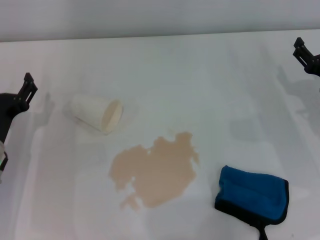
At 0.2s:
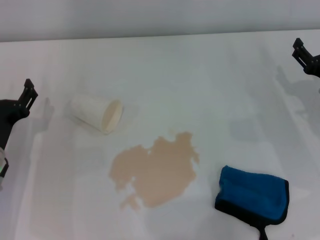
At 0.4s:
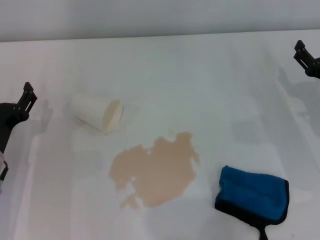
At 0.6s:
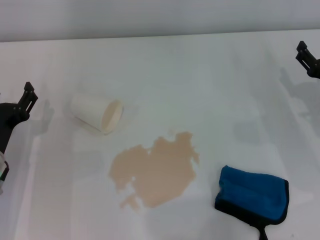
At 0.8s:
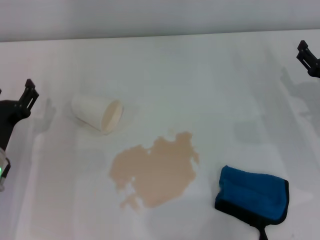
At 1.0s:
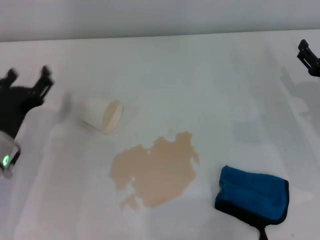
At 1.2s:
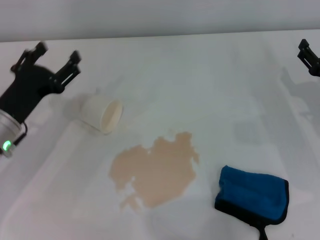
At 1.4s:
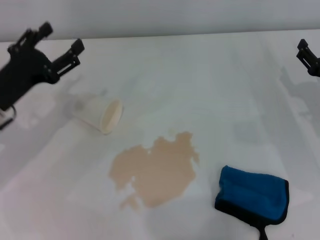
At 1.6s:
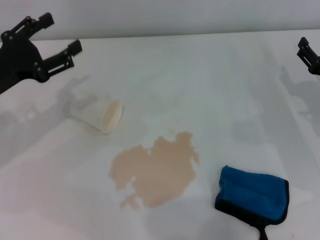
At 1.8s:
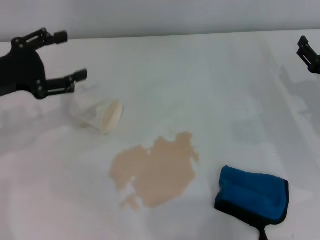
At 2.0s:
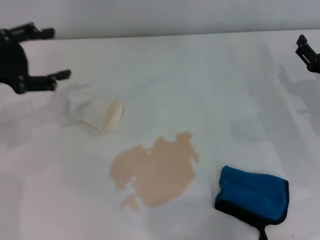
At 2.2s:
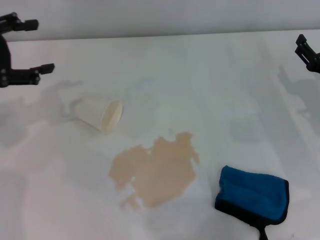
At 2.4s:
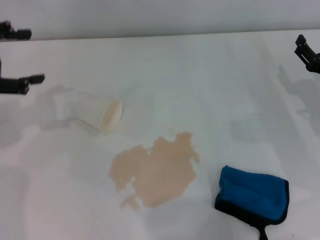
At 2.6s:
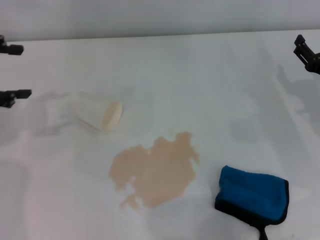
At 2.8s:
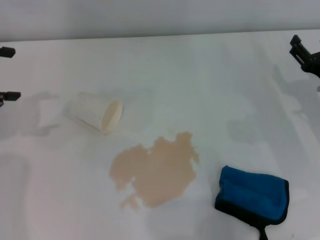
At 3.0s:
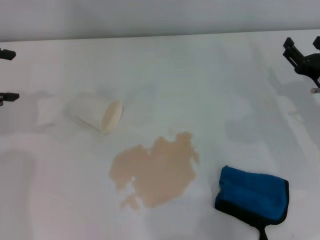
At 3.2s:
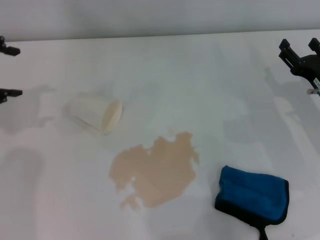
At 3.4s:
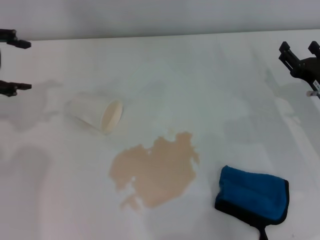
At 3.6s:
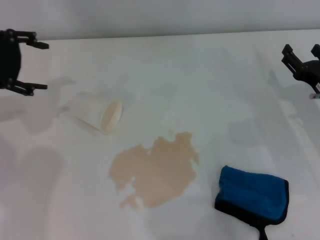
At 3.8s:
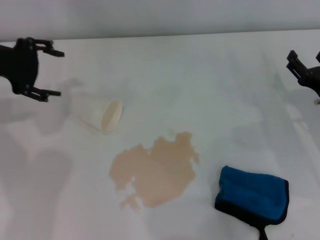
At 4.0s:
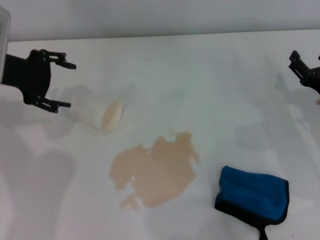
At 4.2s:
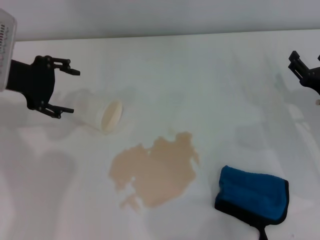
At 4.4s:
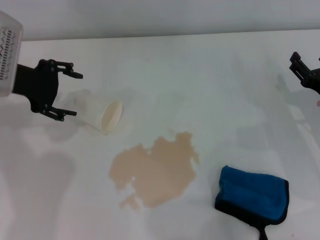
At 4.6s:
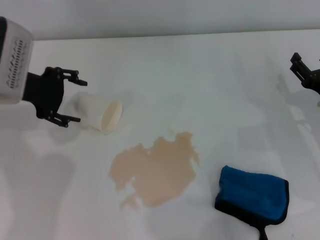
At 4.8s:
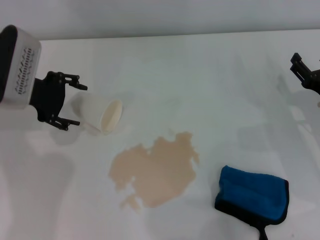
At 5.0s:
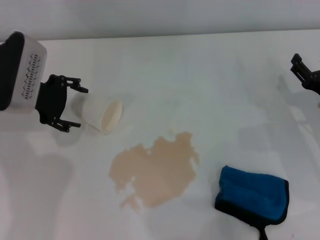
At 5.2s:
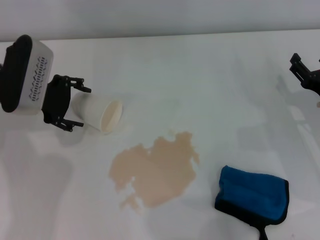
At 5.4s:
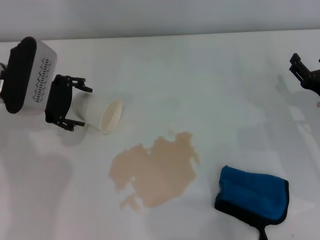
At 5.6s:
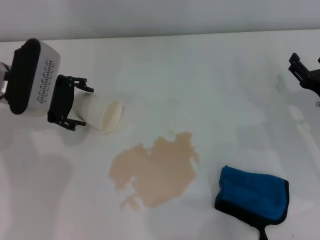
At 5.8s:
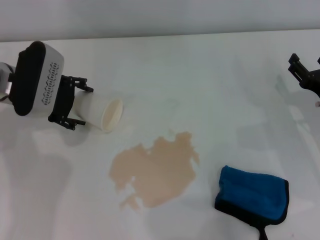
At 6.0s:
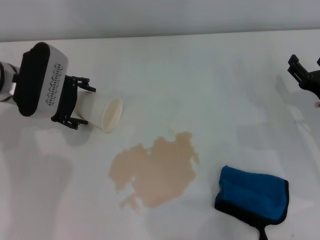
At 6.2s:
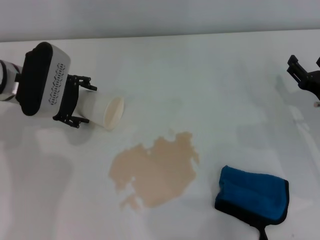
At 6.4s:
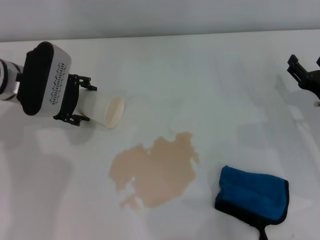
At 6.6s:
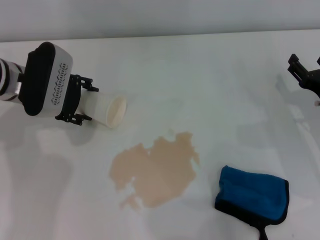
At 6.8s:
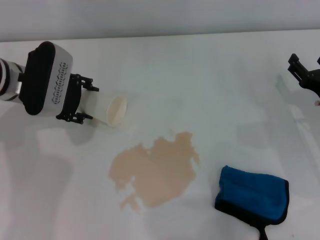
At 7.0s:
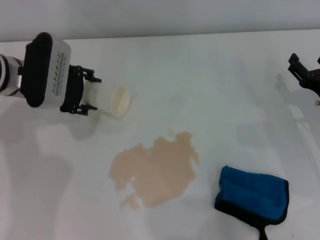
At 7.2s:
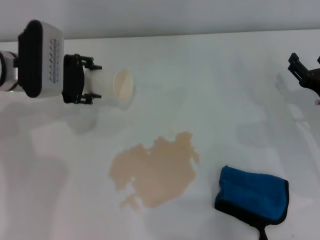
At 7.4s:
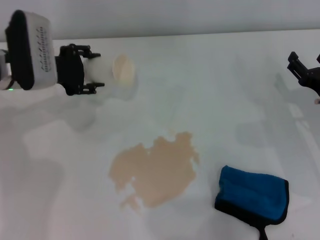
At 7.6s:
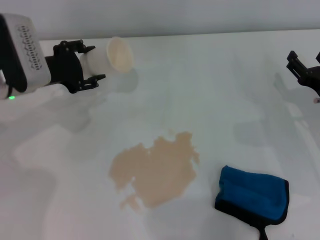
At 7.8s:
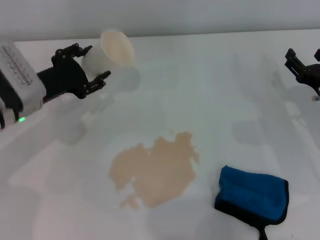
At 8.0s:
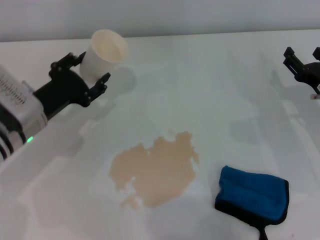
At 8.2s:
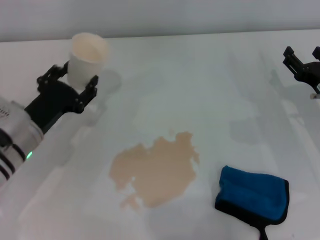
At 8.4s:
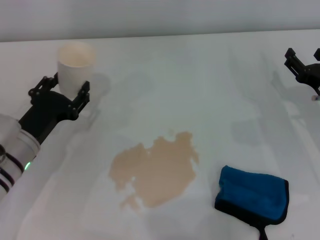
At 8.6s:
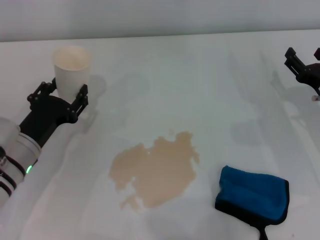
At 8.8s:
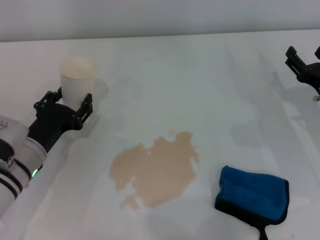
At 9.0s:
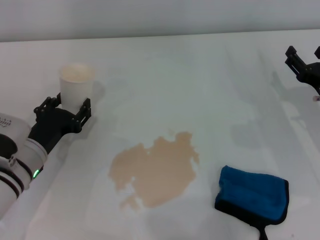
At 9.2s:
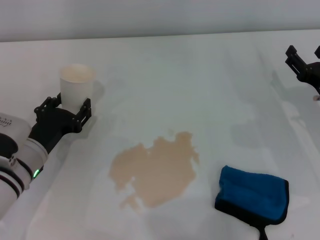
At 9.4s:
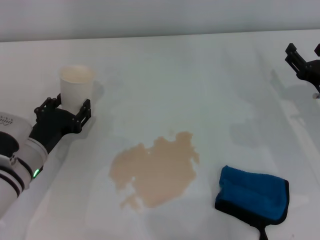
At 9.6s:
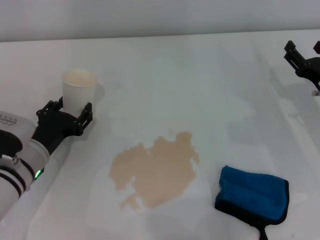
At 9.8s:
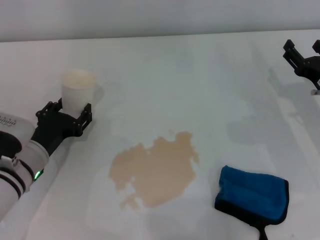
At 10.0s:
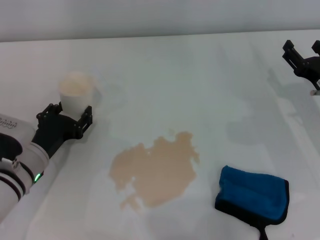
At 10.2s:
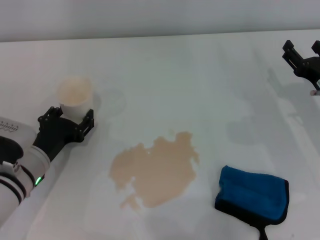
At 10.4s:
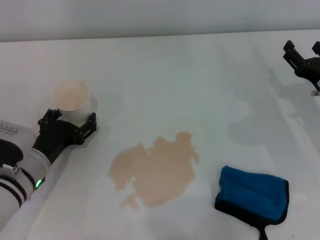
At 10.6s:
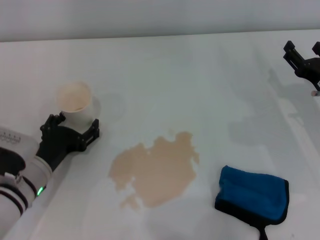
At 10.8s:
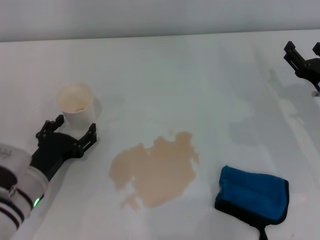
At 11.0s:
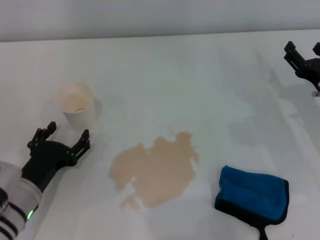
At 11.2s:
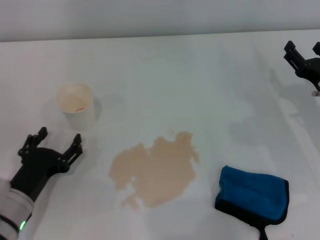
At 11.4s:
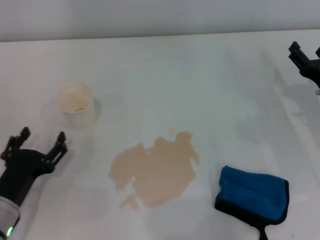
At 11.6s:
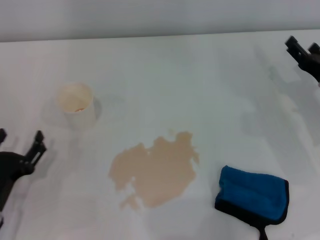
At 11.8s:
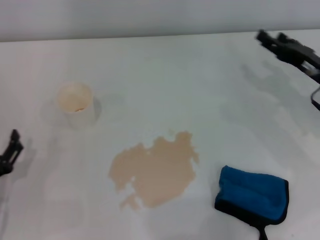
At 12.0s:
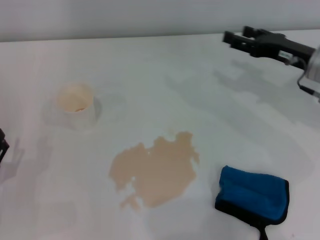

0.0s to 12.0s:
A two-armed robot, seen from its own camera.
Step, 0.0s to 6.6s: Grasp the paper cup with the left gripper.
Step, 6.8s to 10.2s: Stand the paper cup upright with the left gripper.
0.0s to 1.6s: The left gripper travels upward by some 10 cm.
1.6s to 3.0s: The left gripper goes approximately 15 cm upward and to the left.
3.0s to 4.4s: The left gripper travels to the right and downward by roughly 10 cm.
4.4s to 6.0s: The left gripper shifts some 5 cm downward.
6.0s to 7.6s: The left gripper closes its fingers.
7.6s to 9.0s: The left gripper shifts approximately 15 cm backward and downward.
9.0s to 10.4s: The left gripper opens.
10.4s to 12.0s: The left gripper shifts about 10 cm backward and to the left, and opens up, while the right gripper is displaced upward and forward by about 10 cm.

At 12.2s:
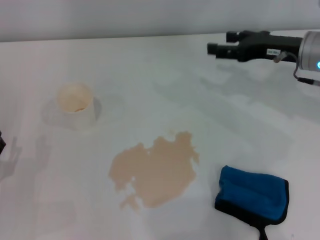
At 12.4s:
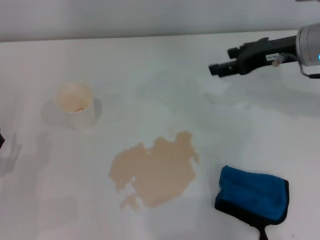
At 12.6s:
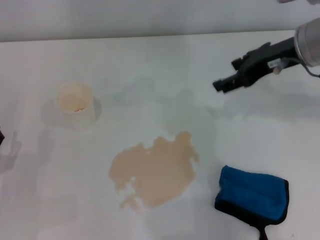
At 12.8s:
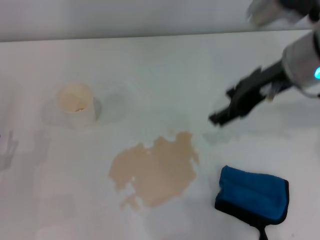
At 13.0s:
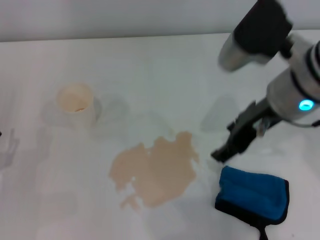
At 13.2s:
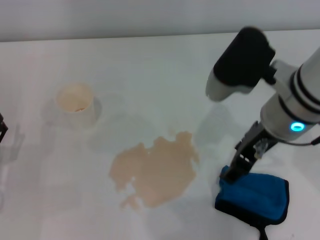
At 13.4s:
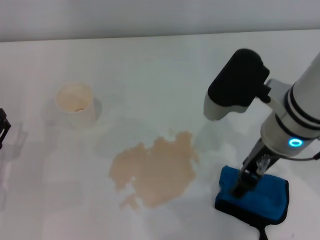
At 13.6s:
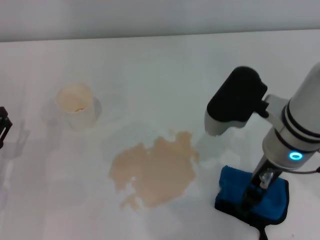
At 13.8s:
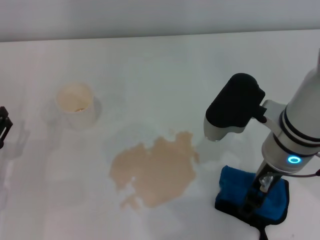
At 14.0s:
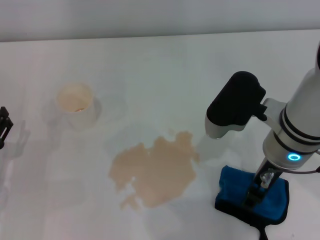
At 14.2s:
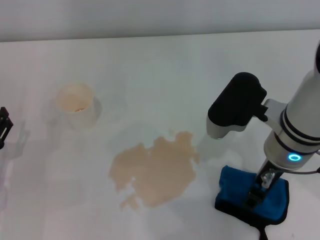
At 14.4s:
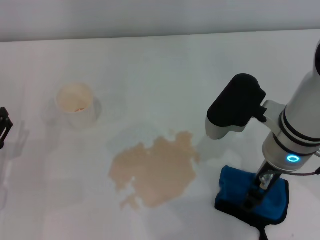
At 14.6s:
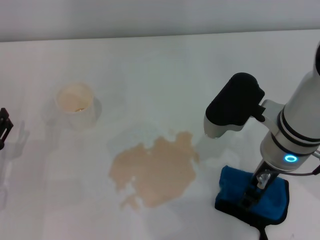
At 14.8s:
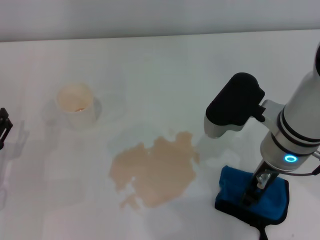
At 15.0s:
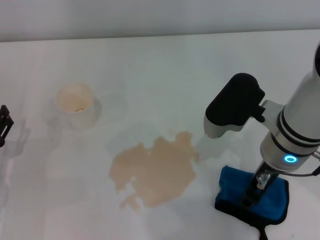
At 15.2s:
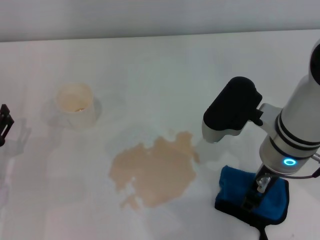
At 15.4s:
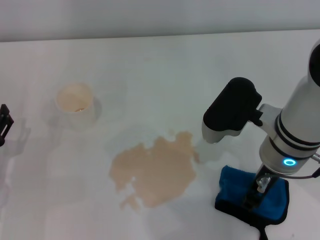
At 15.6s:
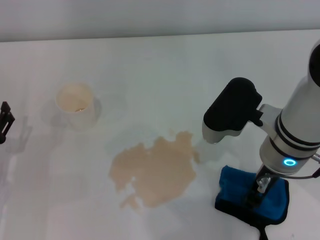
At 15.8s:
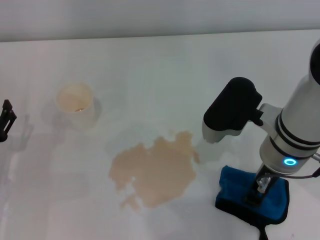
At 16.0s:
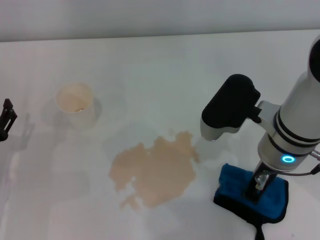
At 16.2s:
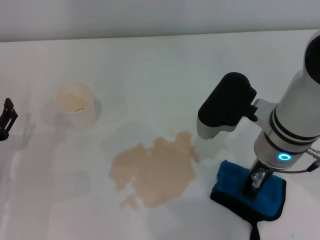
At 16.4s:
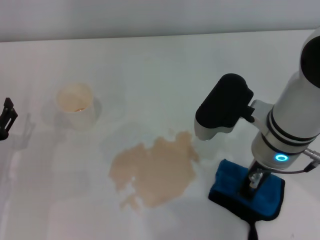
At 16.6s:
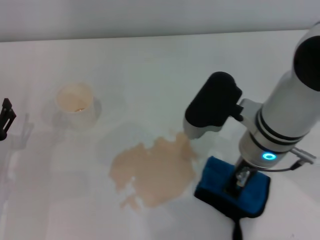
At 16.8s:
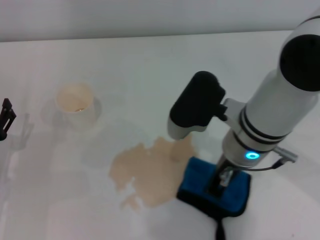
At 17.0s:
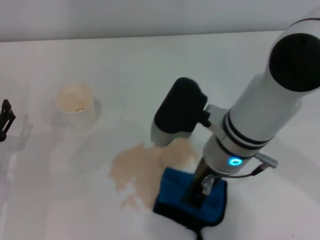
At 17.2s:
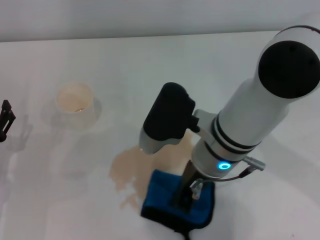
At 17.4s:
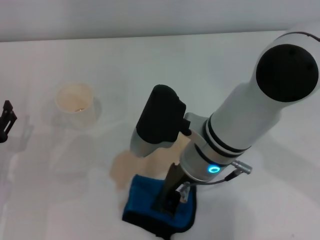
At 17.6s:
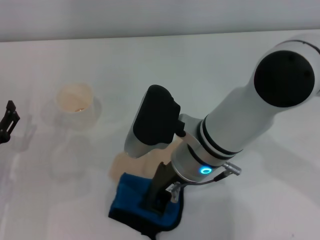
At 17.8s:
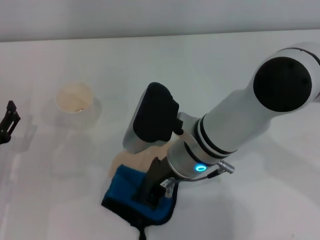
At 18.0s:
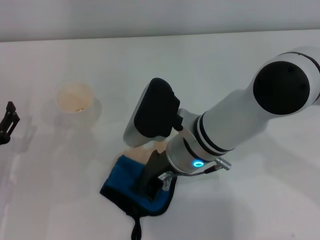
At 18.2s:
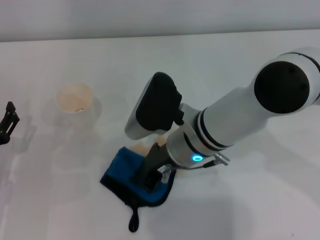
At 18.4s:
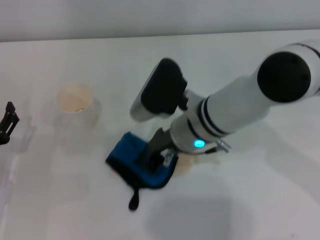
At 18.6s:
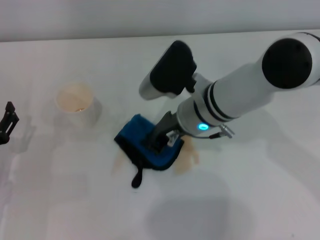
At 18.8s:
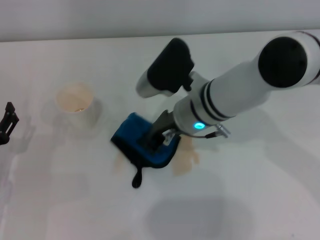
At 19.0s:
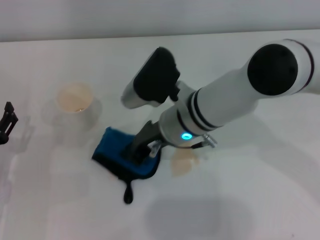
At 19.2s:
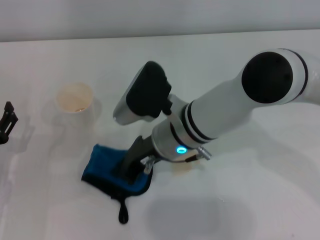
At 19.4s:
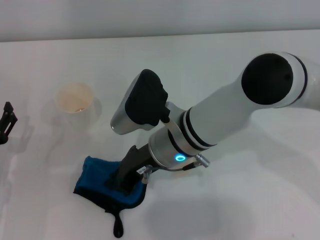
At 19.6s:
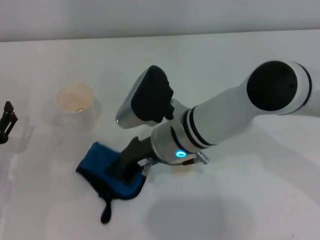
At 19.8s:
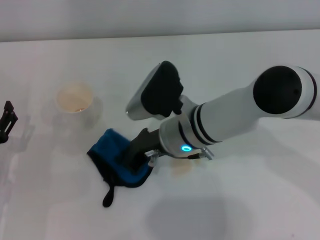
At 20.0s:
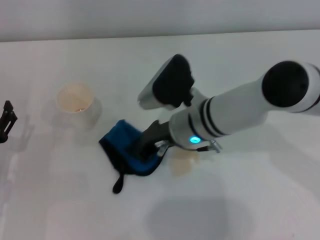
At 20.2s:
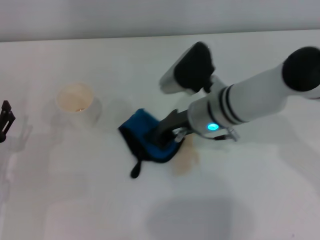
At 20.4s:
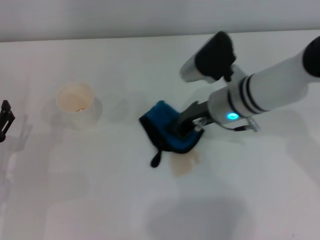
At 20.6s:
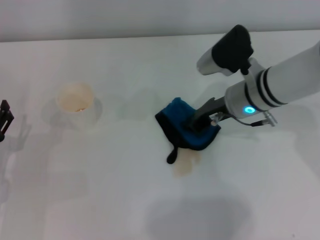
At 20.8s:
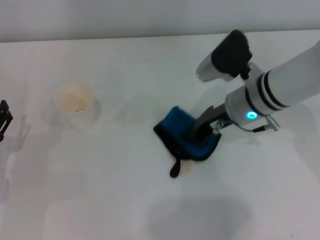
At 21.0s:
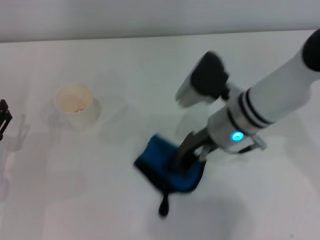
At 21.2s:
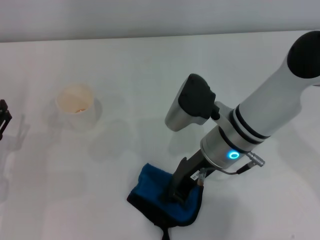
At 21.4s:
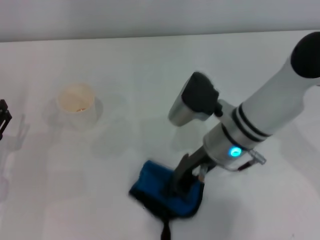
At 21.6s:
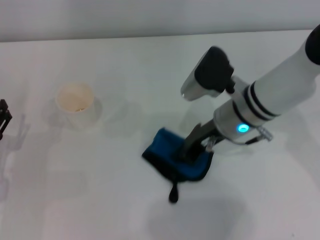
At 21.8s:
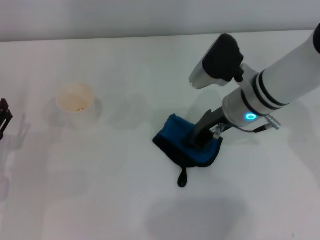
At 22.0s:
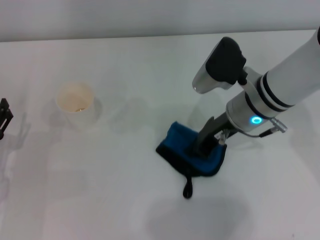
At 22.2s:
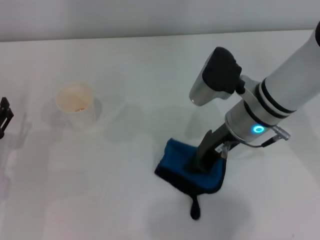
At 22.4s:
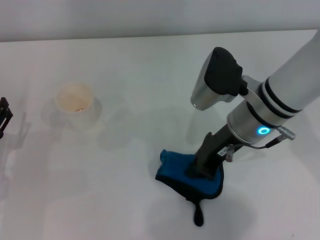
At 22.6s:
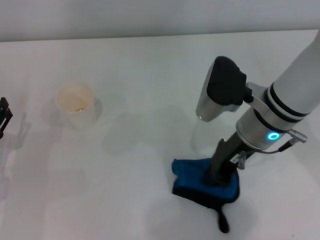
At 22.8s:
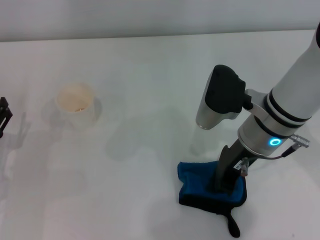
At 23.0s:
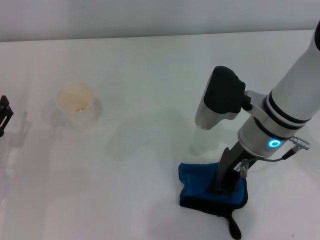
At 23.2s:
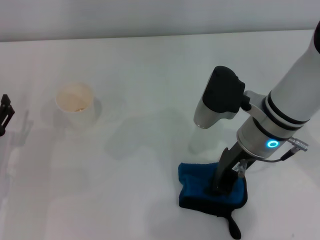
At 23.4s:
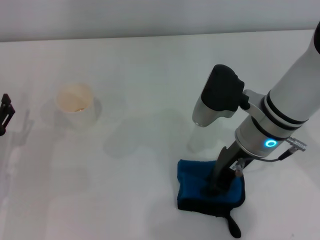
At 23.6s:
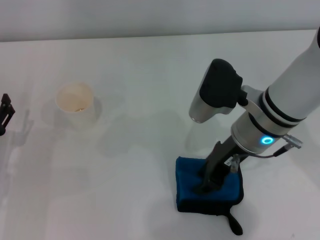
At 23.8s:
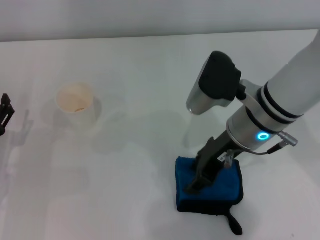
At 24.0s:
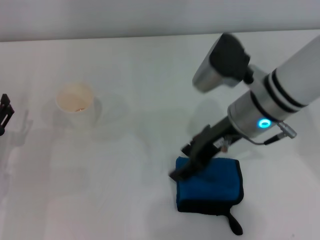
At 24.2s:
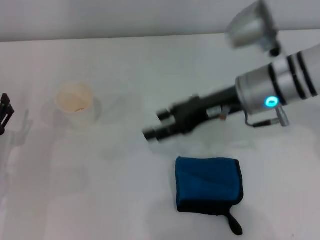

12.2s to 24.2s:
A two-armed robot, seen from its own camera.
Step, 12.2s to 16.2s: Grasp the rag with the right gripper.
Step, 16.4s to 22.6s: Wipe the stains off the table with the right gripper.
Step, 22.8s to 23.4s: Place the rag on the table with the right gripper.
12.2s to 13.8s: The right gripper travels to the left and backward by approximately 15 cm.
13.8s to 15.2s: Neither gripper changes place.
15.2s to 16.6s: The right gripper closes.
16.6s to 18.2s: The right gripper travels to the left by some 5 cm.
18.2s to 19.8s: There are only small adjustments of the grippers.
19.8s to 21.2s: The right gripper heads to the right, covering approximately 5 cm.
21.2s to 22.6s: The right gripper changes place by approximately 5 cm.
22.6s to 24.2s: The right gripper opens.
